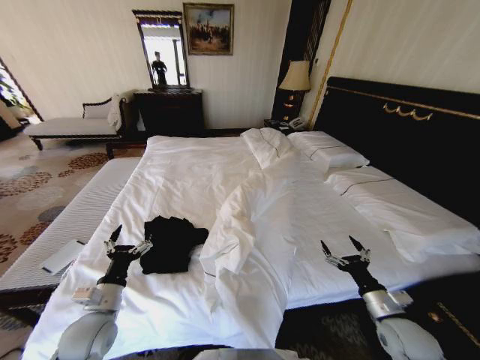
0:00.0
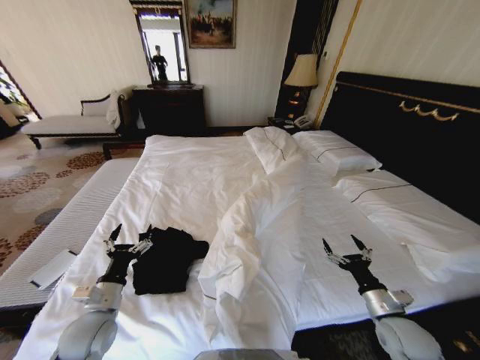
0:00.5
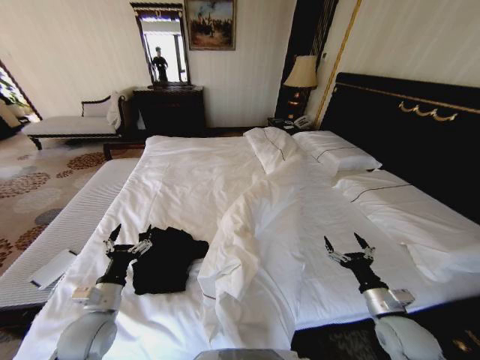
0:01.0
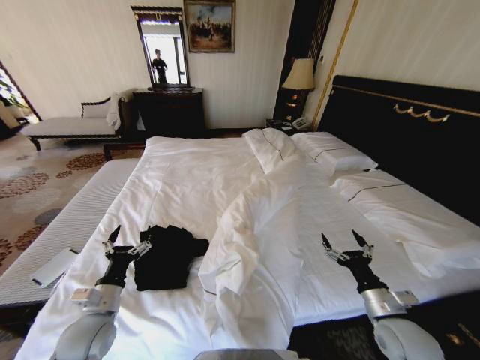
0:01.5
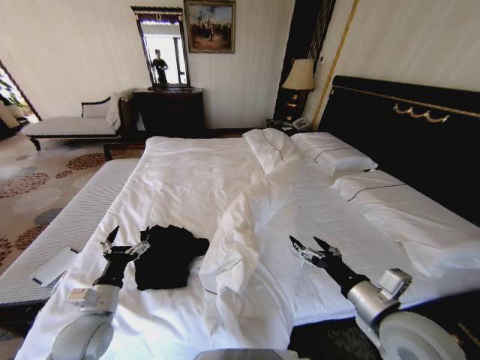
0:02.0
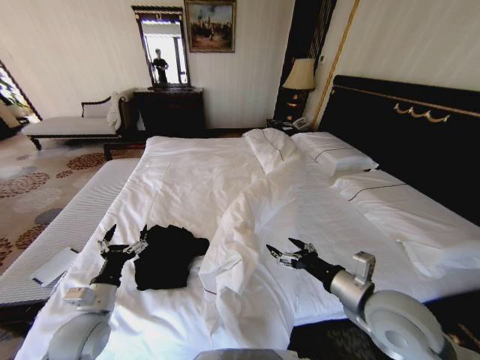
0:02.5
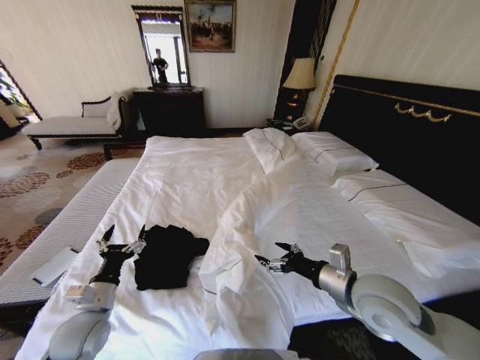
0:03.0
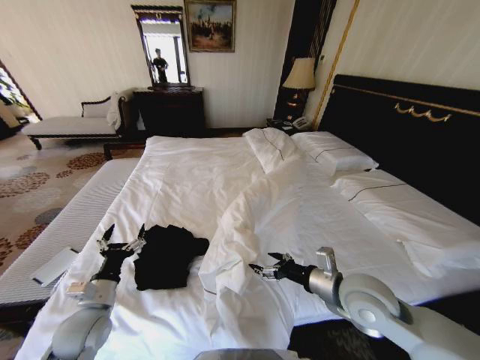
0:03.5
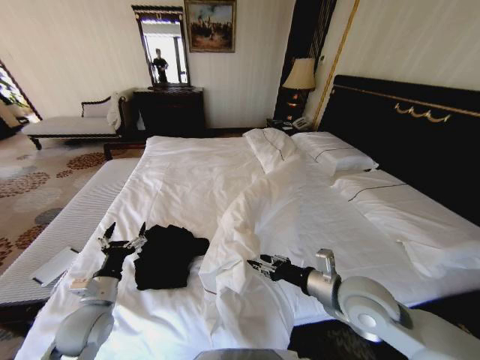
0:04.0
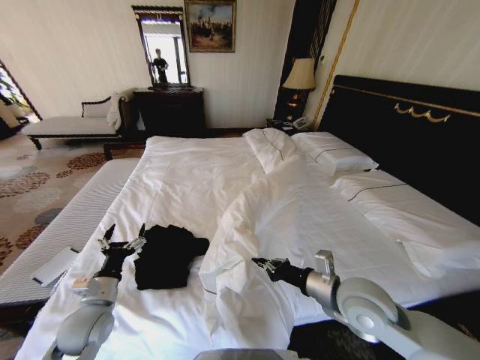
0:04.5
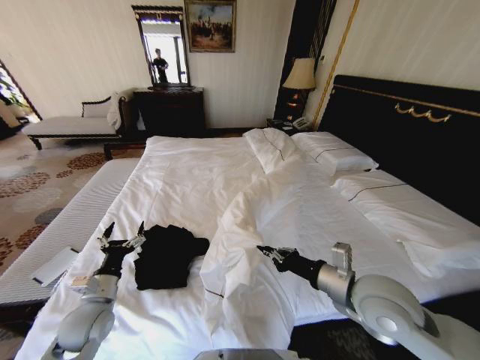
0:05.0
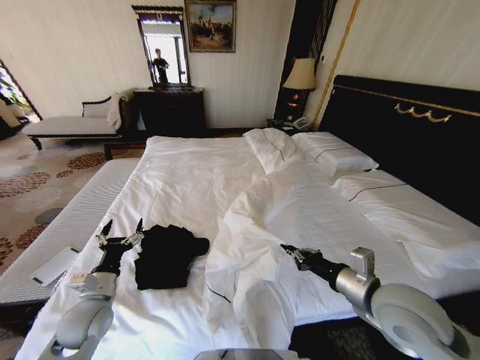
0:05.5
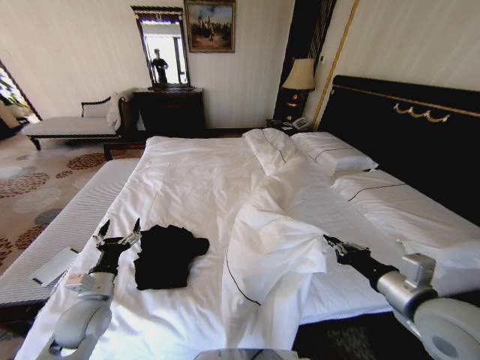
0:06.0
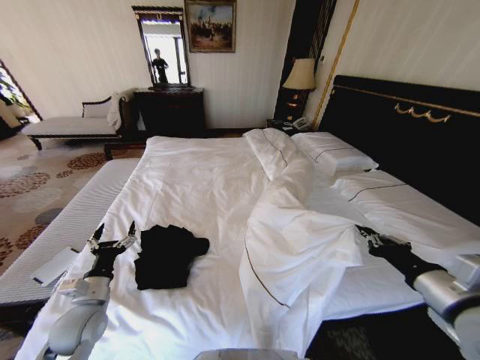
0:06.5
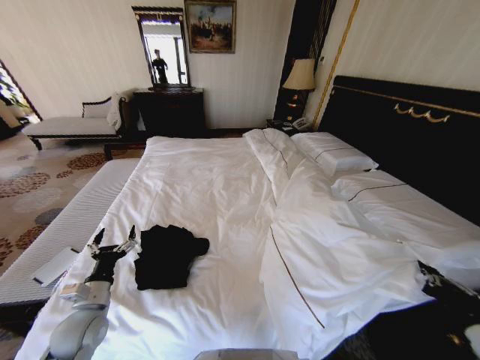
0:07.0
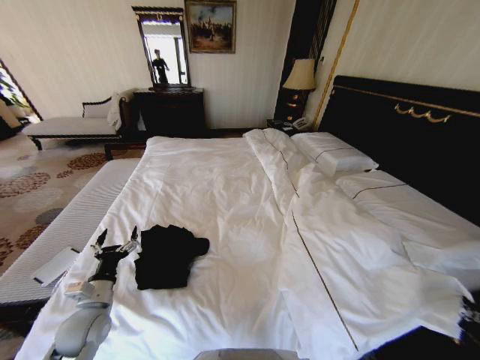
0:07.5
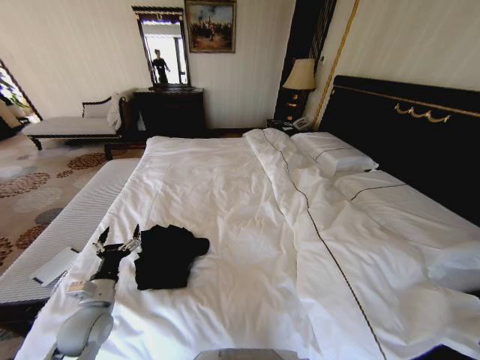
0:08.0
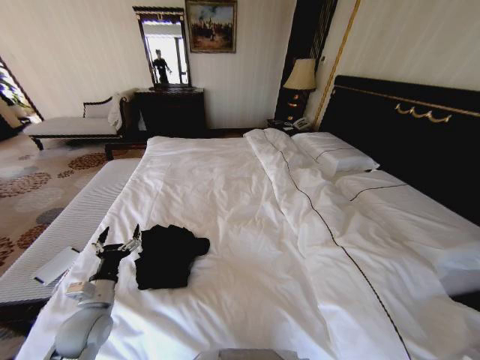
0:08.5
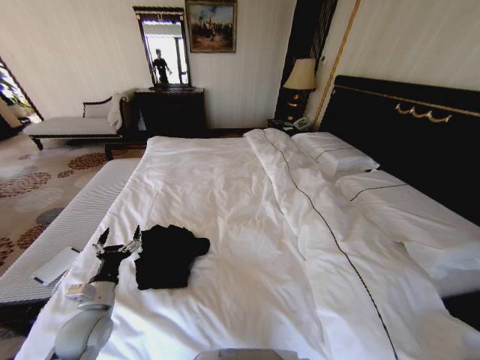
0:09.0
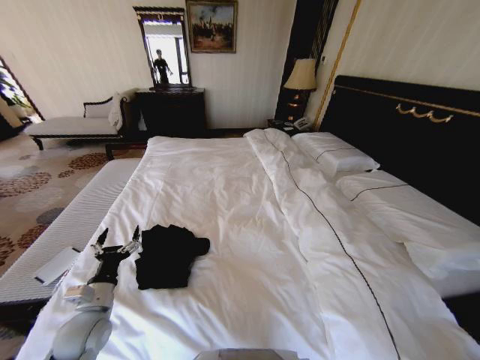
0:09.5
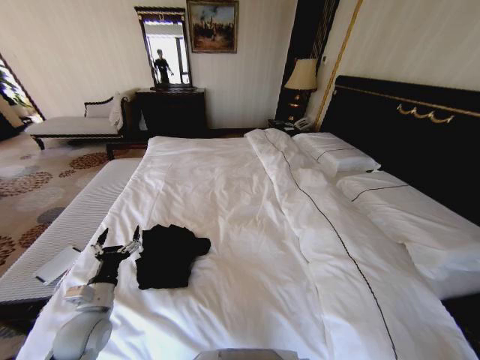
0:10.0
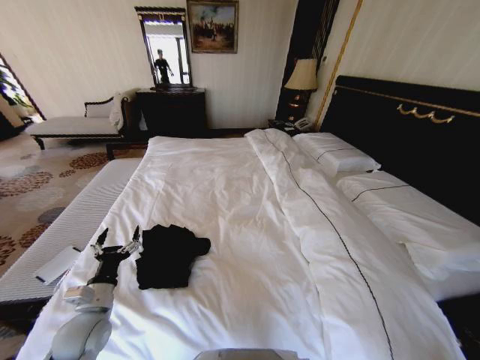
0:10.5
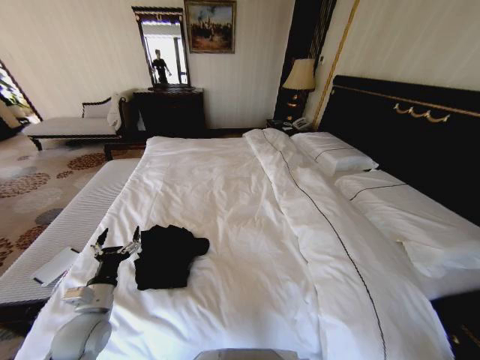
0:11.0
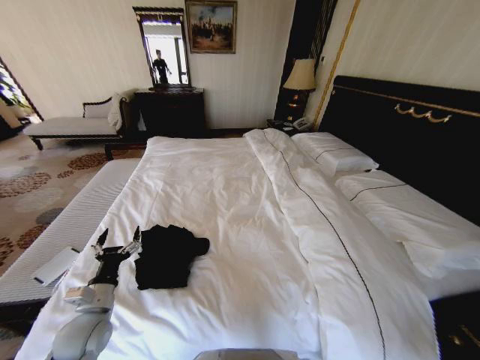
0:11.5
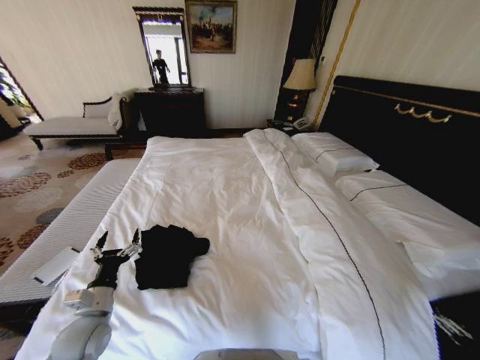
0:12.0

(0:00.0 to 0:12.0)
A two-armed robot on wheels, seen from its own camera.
Task of the whole recording: Fold the clothes on the bed.
0:00.0 - 0:02.0: The right gripper moves upward and to the left, approximately 15 cm.
0:02.0 - 0:04.0: The right gripper shifts some 5 cm forward, and closes its fingers.
0:04.0 - 0:06.0: The right gripper moves to the right and backward, some 10 cm, and closes its fingers.
0:06.0 - 0:08.0: The right gripper moves to the right, downward and backward, some 25 cm.
0:08.0 - 0:10.0: The right gripper goes about 20 cm downward.
0:10.0 - 0:12.0: The right gripper shifts about 10 cm upward, and opens.

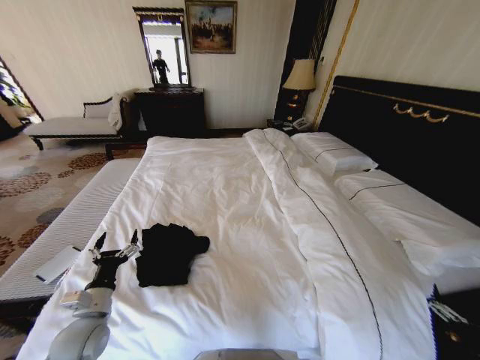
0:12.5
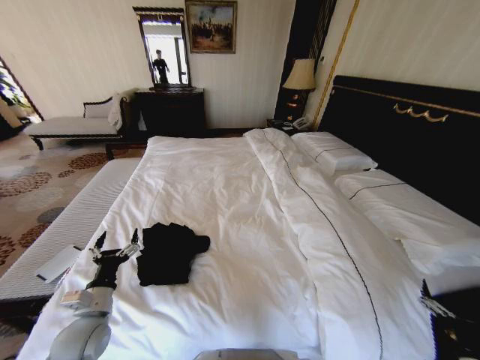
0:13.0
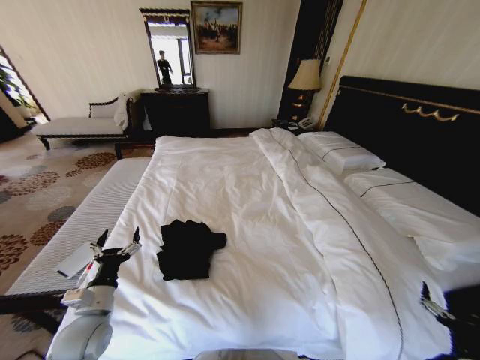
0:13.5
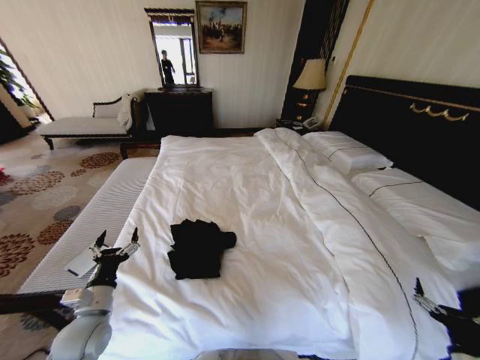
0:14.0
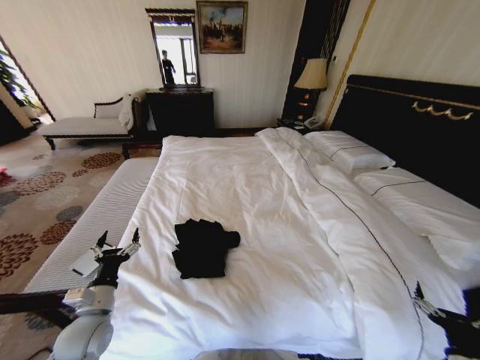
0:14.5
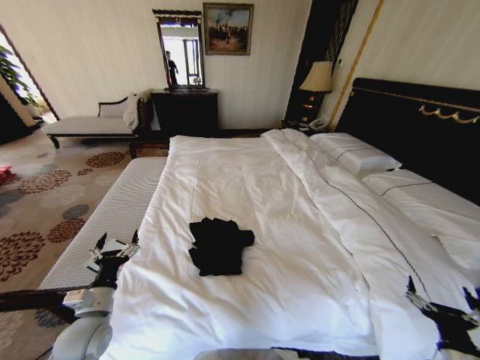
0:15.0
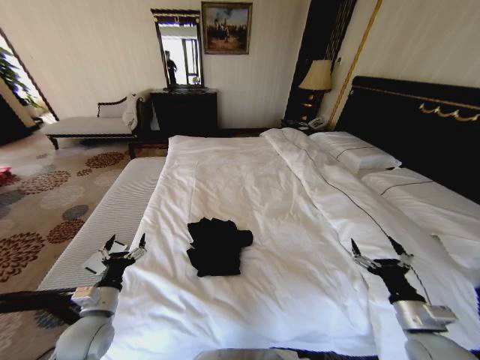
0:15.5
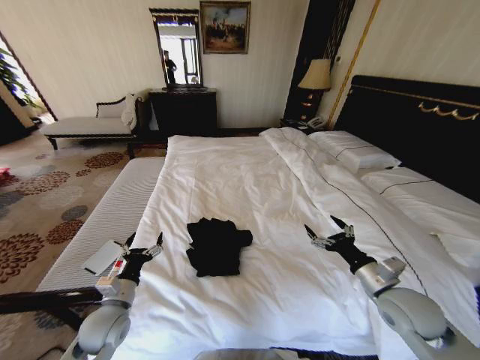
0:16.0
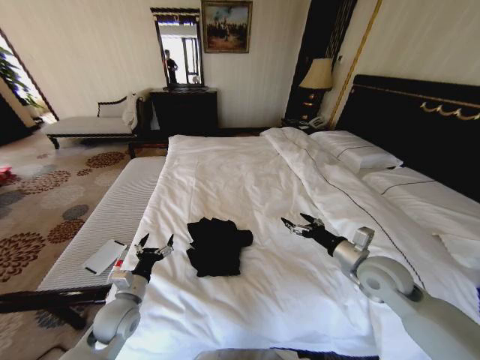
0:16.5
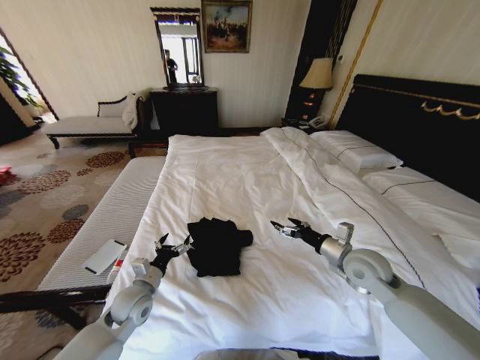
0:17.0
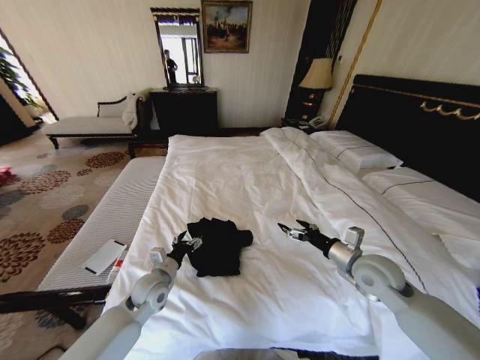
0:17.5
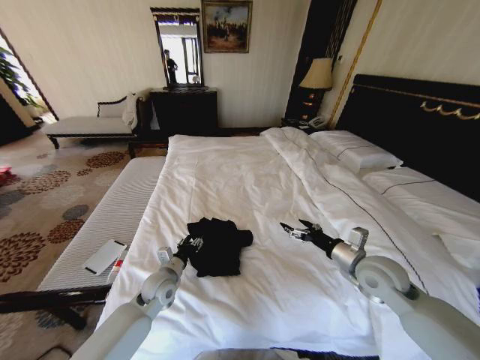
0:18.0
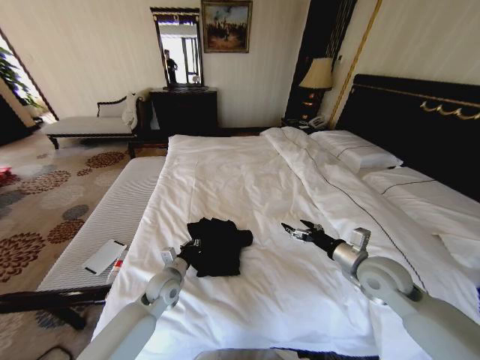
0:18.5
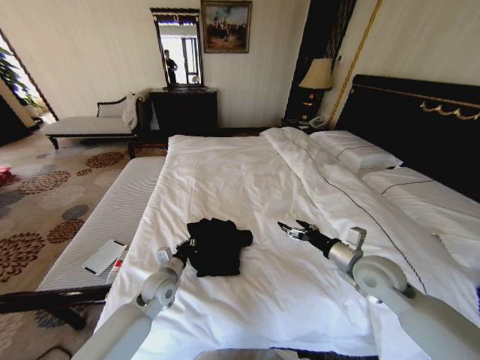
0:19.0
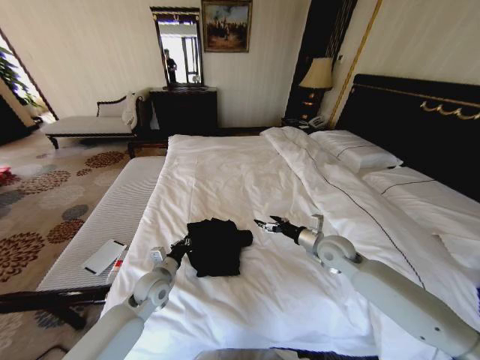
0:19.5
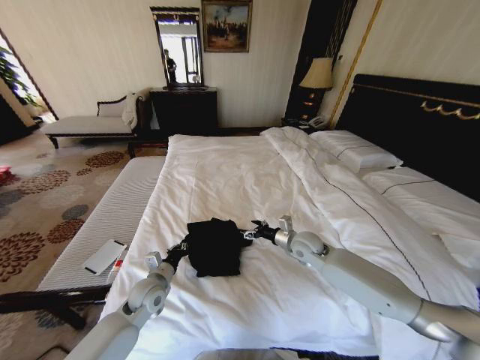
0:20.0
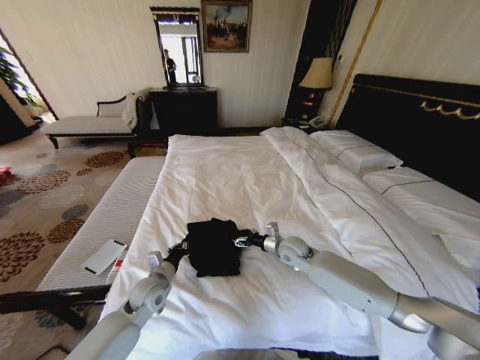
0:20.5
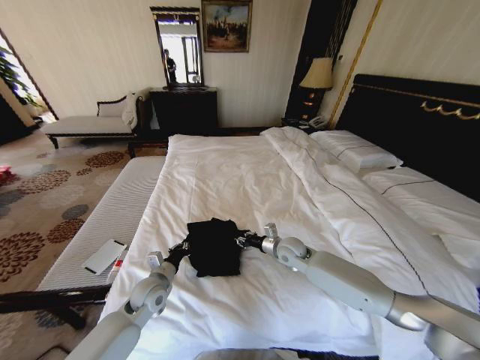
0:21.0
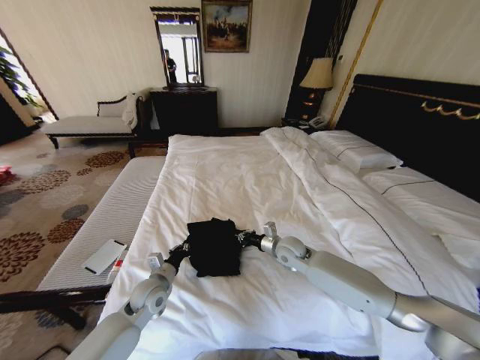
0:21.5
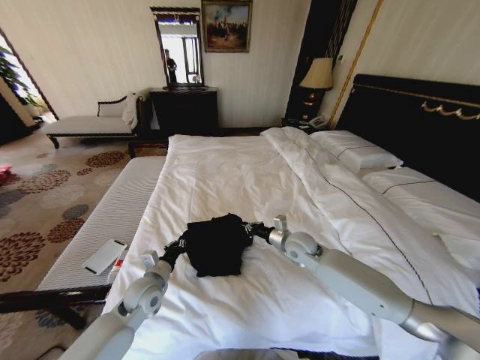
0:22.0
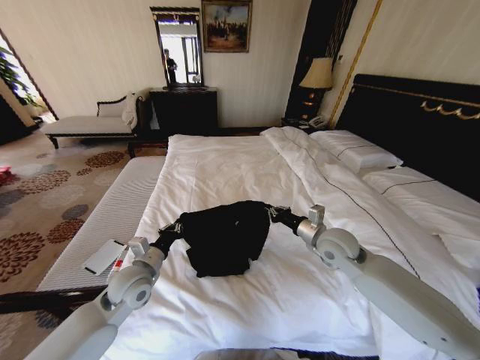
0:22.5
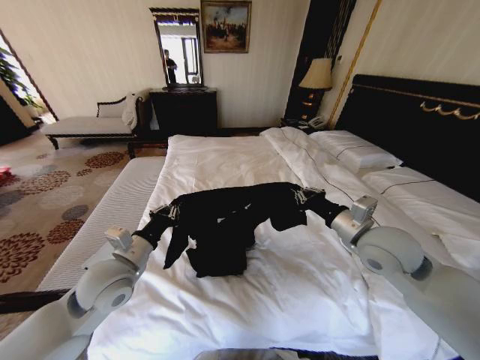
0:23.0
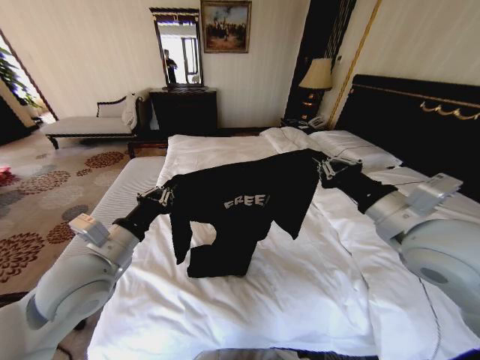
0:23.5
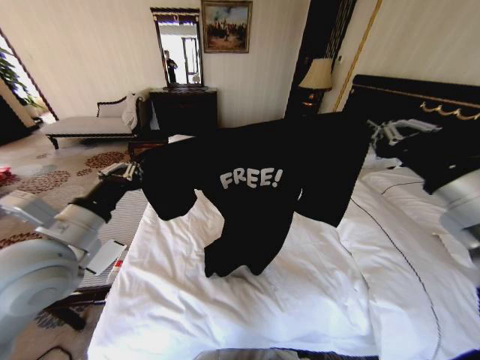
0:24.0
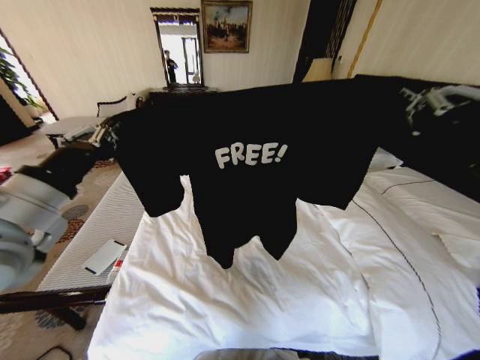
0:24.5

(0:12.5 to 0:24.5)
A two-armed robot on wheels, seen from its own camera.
Task of the whole recording: Fold the clothes on the bed.
0:14.5 - 0:16.5: The left gripper moves some 5 cm. The right gripper moves forward, upward and to the left, roughly 30 cm.
0:16.5 - 0:18.5: The left gripper travels to the right and forward by some 10 cm, and closes.
0:18.5 - 0:20.5: The right gripper heads to the left, forward and downward, covering approximately 20 cm.
0:20.5 - 0:22.5: The right gripper is displaced upward and to the right by about 15 cm, and closes up, while the left gripper is displaced upward by some 10 cm.
0:22.5 - 0:24.5: The left gripper heads upward, covering roughly 25 cm; the right gripper travels upward and backward by about 35 cm.

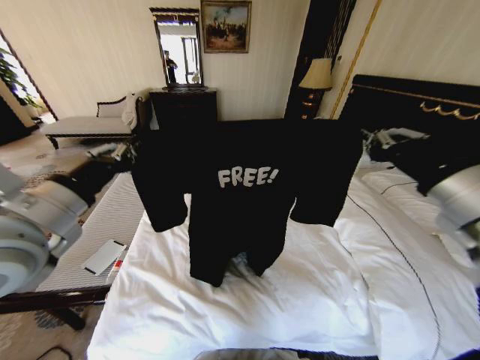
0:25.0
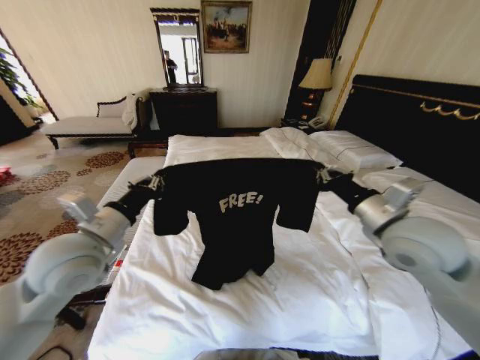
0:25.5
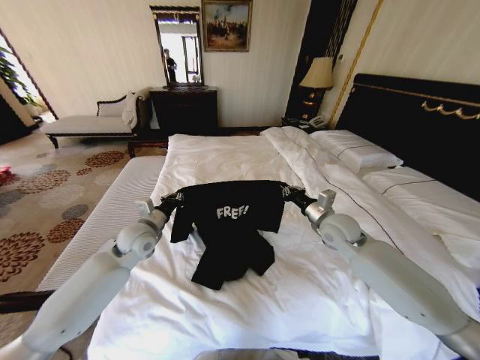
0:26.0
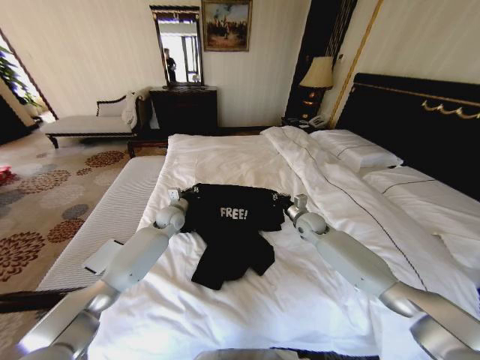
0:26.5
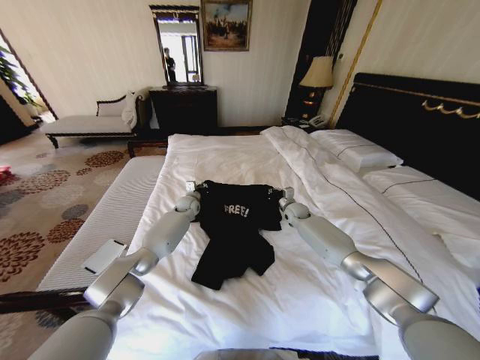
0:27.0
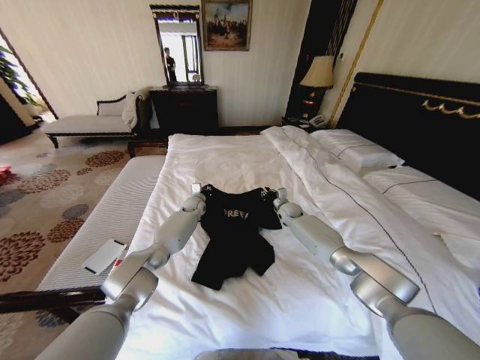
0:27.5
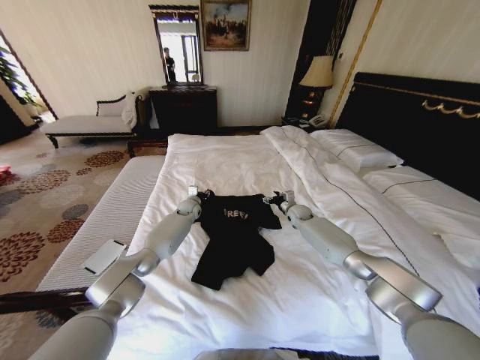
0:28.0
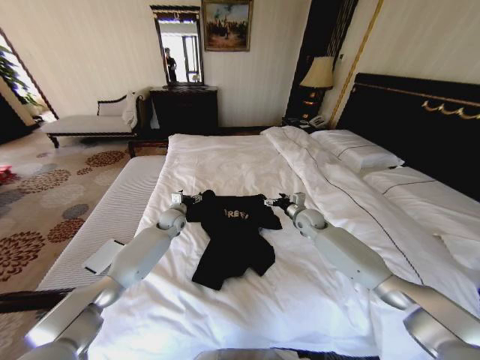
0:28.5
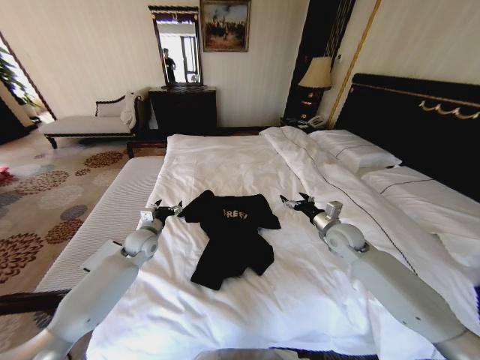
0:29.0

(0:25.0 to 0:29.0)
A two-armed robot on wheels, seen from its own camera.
Task of the whole recording: Fold the clothes on the bed.
0:25.0 - 0:27.0: Both grippers travel together forward and downward, roughly 50 cm.
0:27.0 - 0:29.0: The left gripper heads backward and to the left, covering approximately 20 cm, and opens; the right gripper heads backward and upward, covering approximately 20 cm, and opens its fingers.
